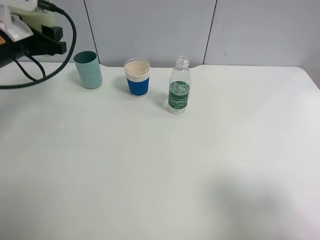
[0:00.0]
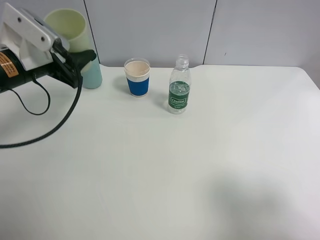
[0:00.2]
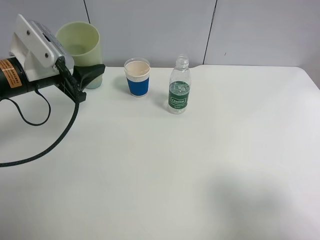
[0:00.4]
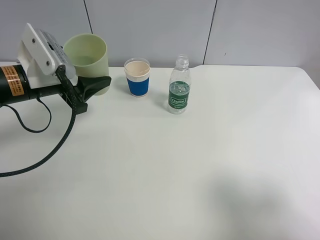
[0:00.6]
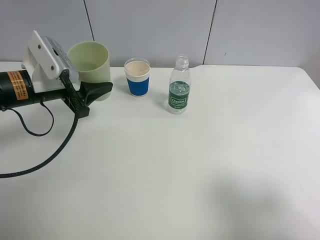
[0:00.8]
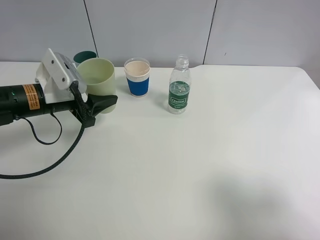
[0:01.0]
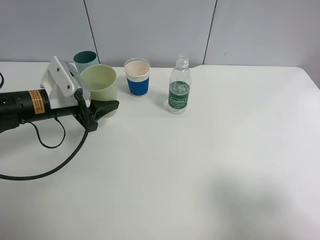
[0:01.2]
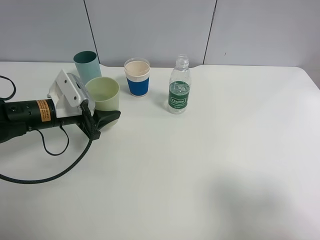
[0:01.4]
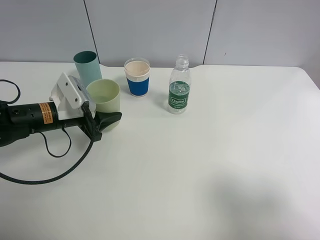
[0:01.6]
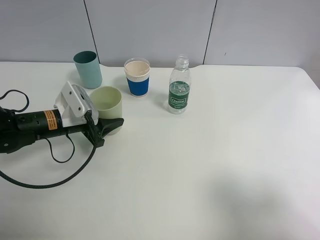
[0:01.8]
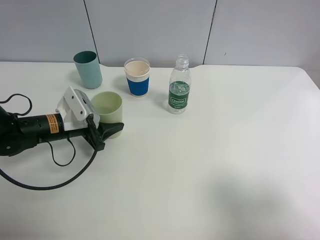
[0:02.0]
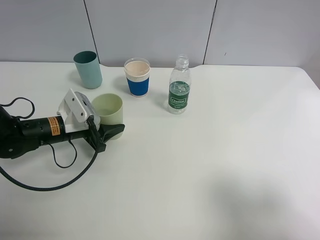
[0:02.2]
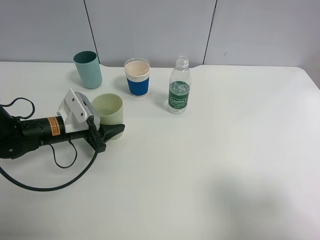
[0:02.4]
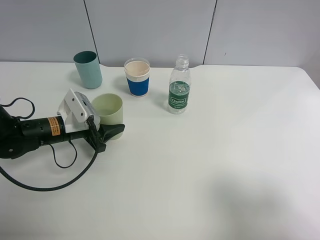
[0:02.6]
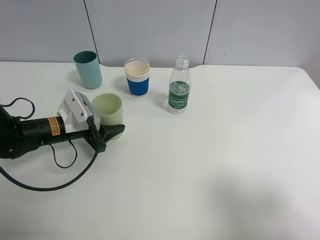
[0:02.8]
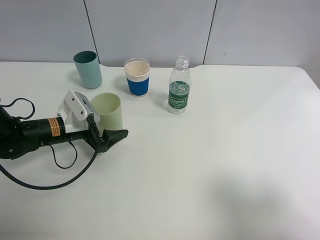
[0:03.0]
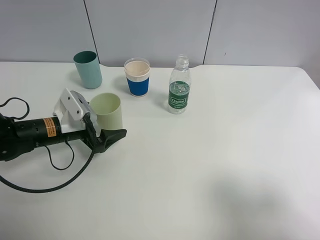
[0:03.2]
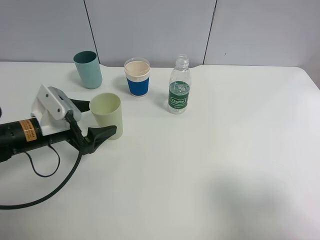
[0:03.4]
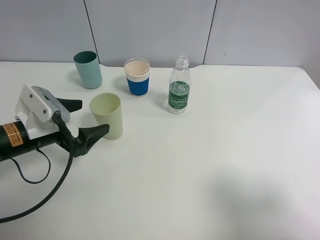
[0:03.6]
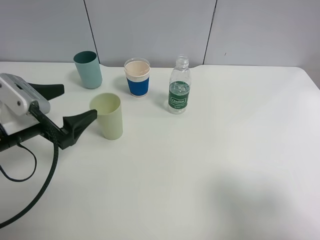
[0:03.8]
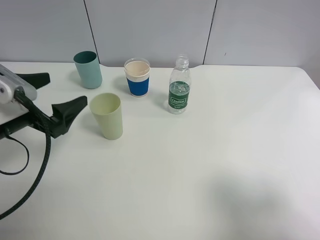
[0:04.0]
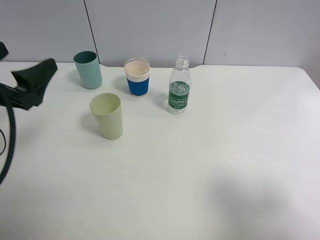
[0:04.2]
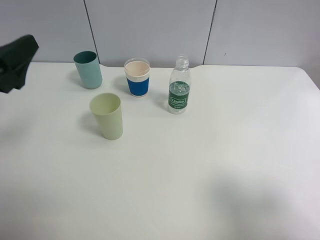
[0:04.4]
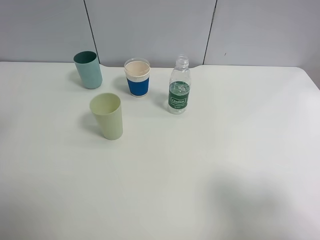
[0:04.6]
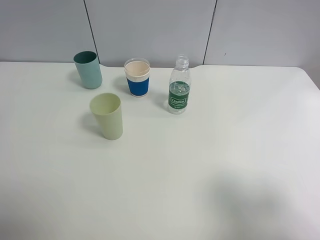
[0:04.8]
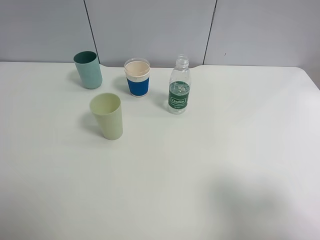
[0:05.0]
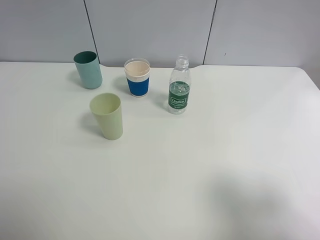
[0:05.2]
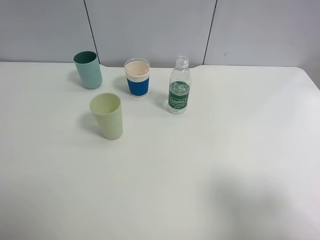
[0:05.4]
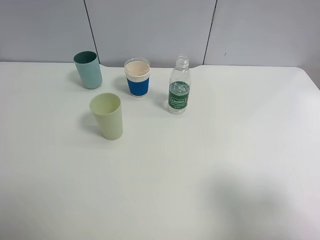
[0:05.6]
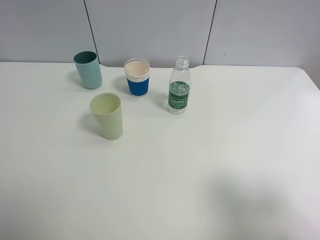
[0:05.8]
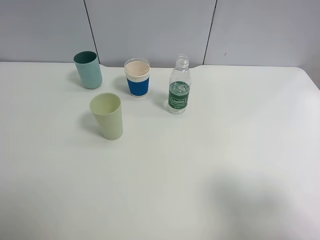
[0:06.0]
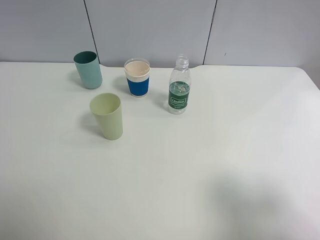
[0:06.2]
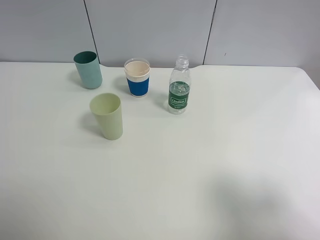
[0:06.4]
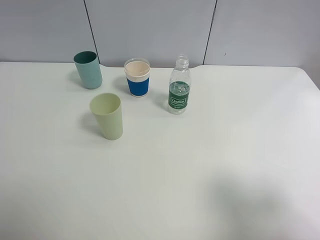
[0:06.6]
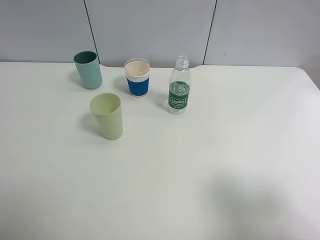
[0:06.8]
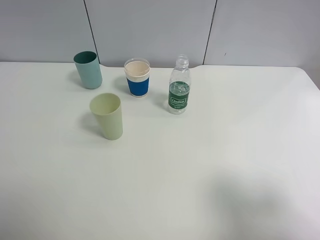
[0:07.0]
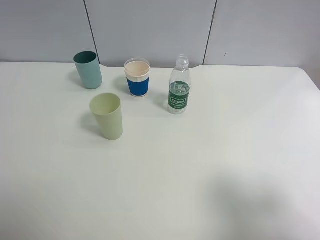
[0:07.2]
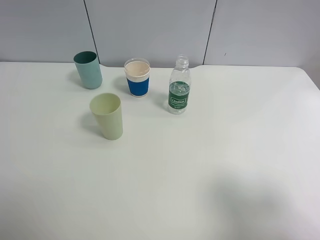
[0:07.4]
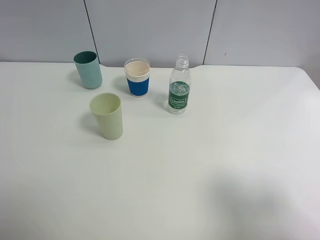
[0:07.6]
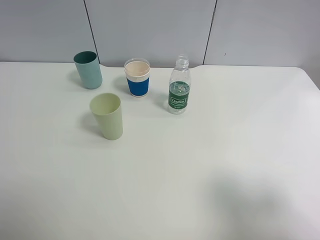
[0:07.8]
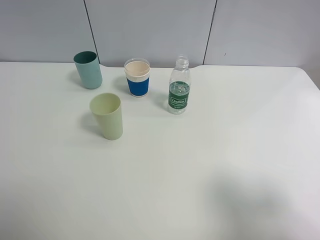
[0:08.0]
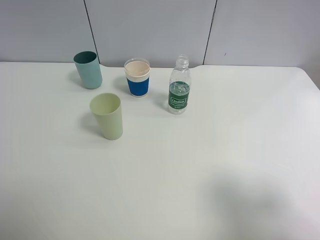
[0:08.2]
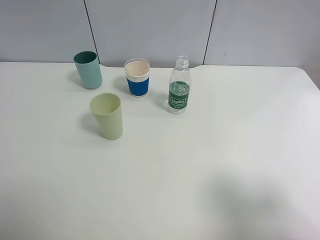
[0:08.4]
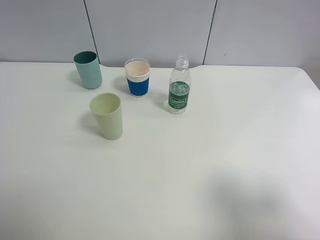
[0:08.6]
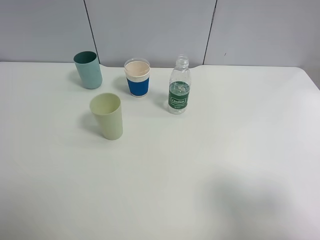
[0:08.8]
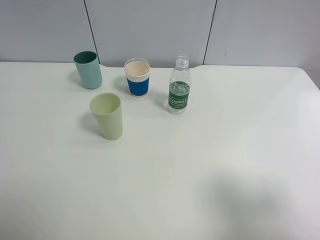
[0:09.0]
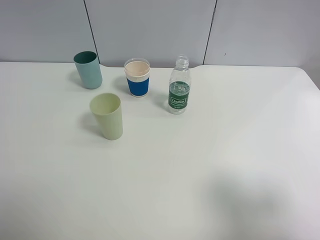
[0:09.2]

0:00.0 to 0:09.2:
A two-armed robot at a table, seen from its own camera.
Task of the whole recording: use a clamp to hold the bottle of the drink, pour the beverage into a random cup, then clamp the cup containing the drink and pour the drink into another random cup.
Step, 0:00.0 to 0:03.0: Place the green plastic cup on the table with left gripper.
0:00.0 to 0:01.6: The left gripper moves downward and to the right, roughly 15 cm.
0:01.6 to 0:03.0: The left gripper opens.
0:03.0 to 0:04.6: The left gripper travels upward and backward by approximately 30 cm.
0:07.6 to 0:09.2: The two grippers keep their place.

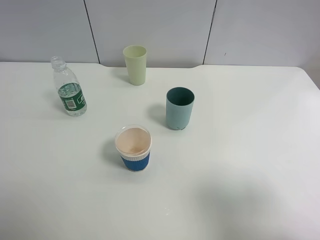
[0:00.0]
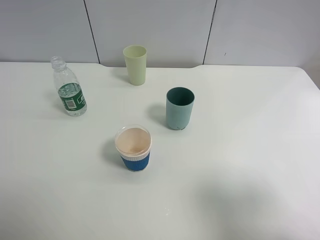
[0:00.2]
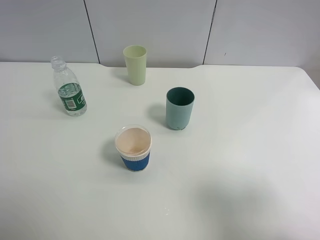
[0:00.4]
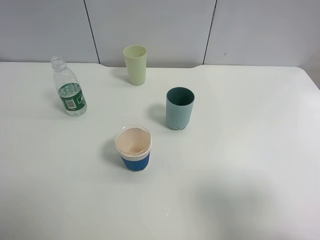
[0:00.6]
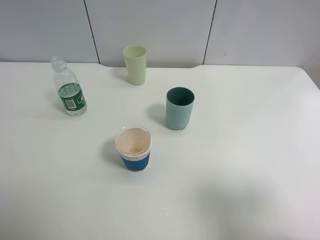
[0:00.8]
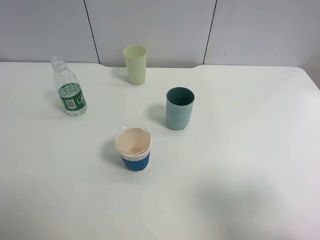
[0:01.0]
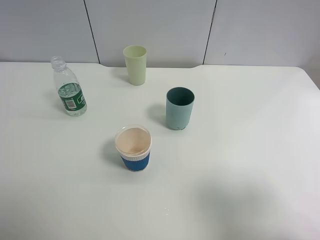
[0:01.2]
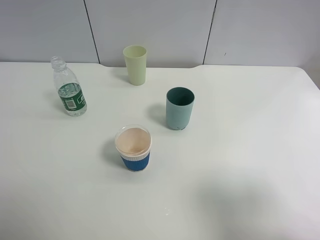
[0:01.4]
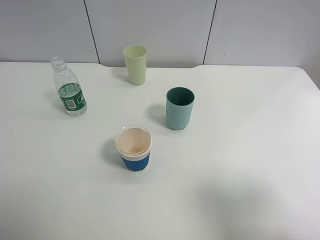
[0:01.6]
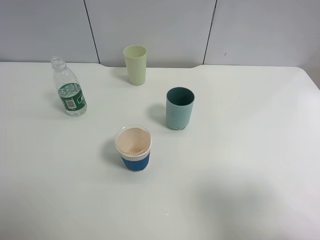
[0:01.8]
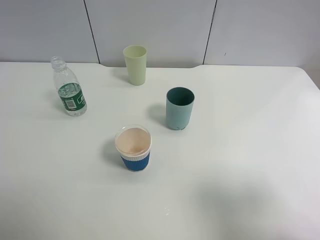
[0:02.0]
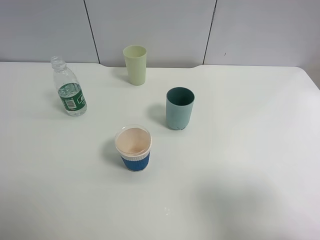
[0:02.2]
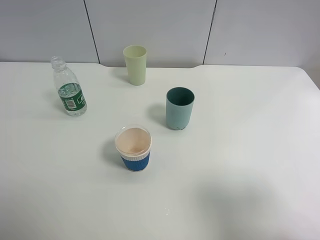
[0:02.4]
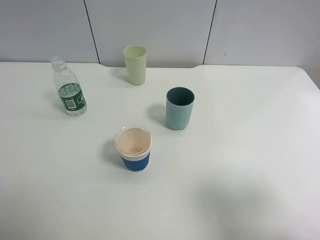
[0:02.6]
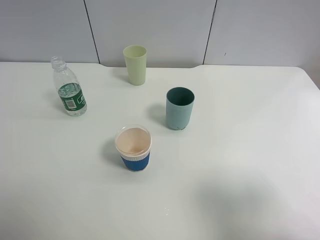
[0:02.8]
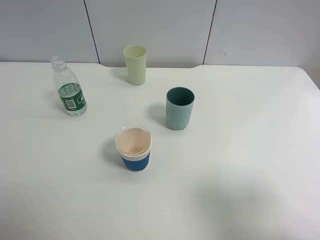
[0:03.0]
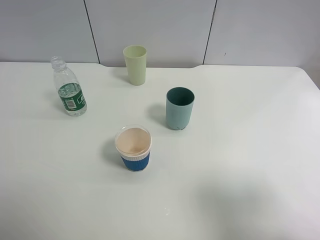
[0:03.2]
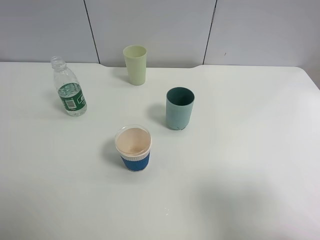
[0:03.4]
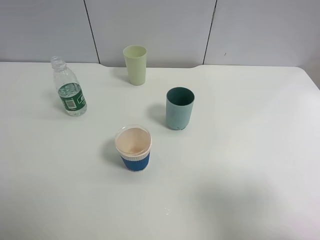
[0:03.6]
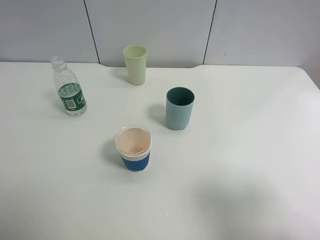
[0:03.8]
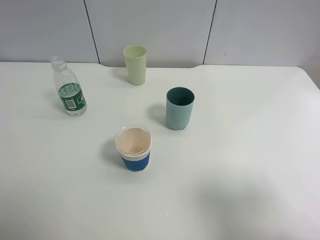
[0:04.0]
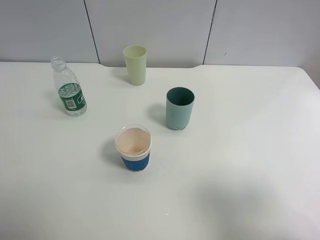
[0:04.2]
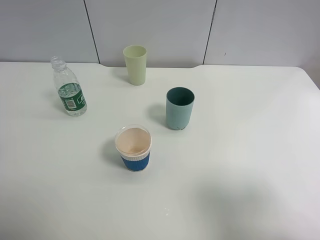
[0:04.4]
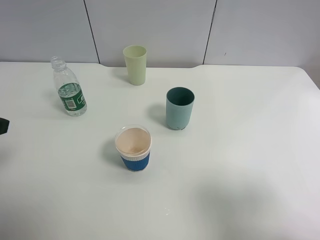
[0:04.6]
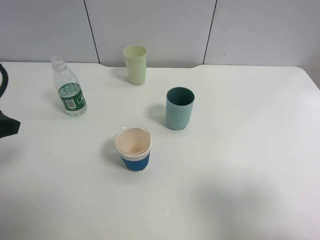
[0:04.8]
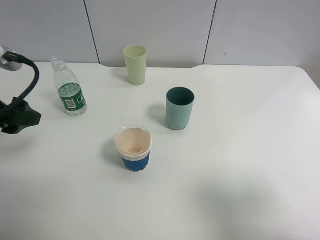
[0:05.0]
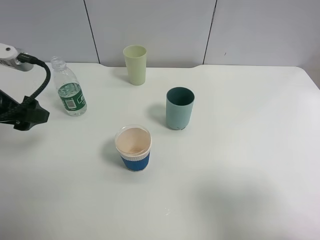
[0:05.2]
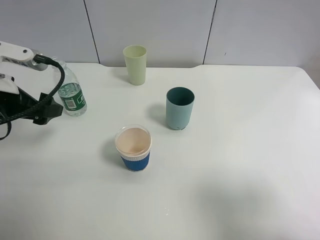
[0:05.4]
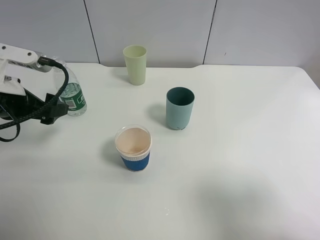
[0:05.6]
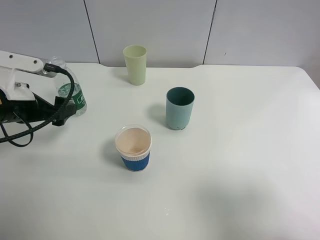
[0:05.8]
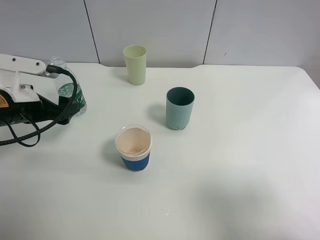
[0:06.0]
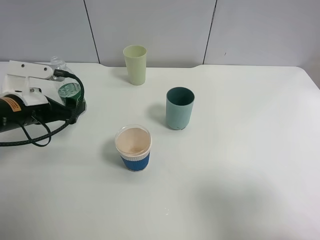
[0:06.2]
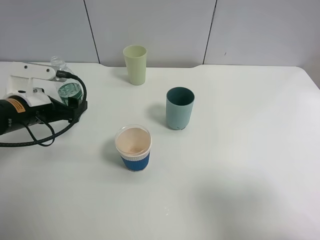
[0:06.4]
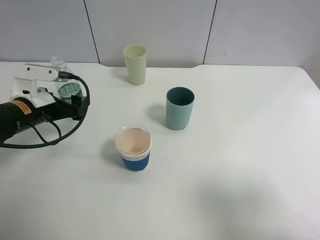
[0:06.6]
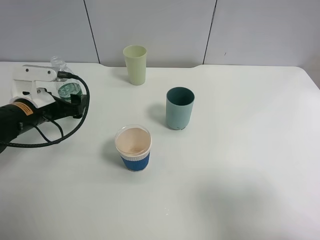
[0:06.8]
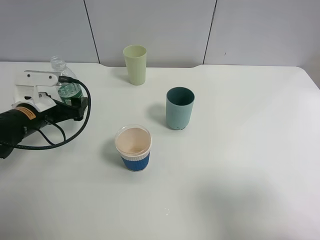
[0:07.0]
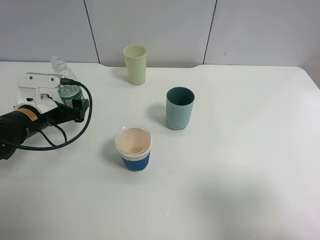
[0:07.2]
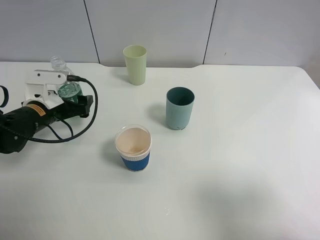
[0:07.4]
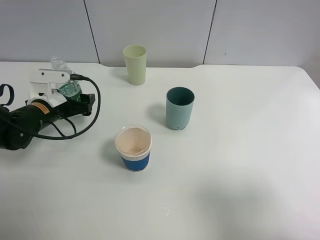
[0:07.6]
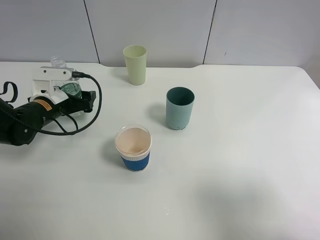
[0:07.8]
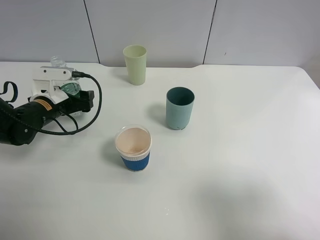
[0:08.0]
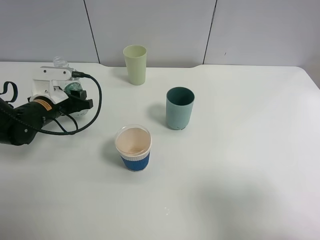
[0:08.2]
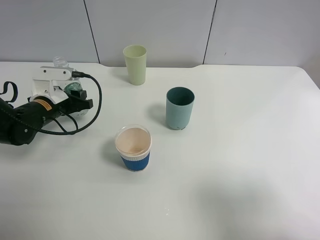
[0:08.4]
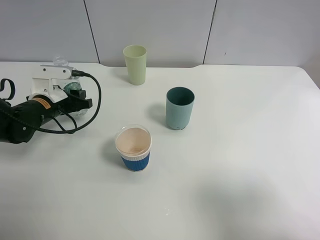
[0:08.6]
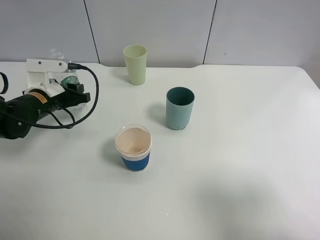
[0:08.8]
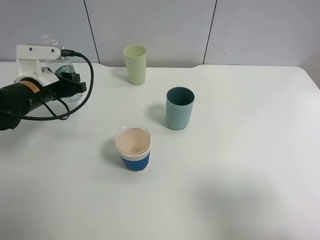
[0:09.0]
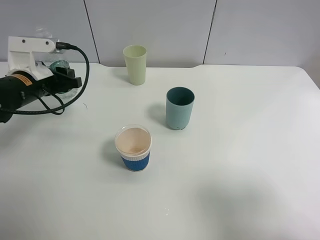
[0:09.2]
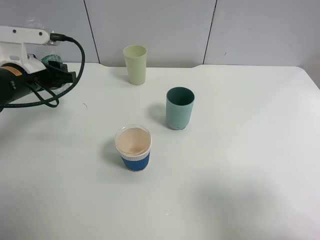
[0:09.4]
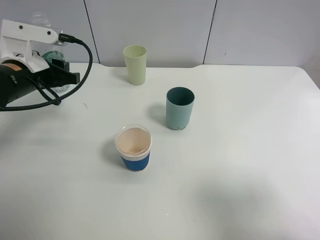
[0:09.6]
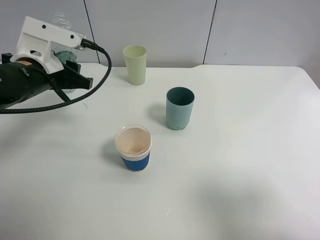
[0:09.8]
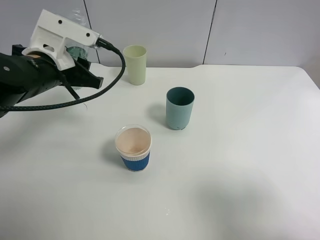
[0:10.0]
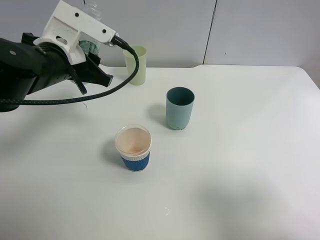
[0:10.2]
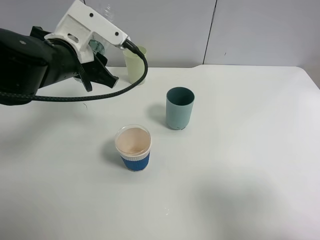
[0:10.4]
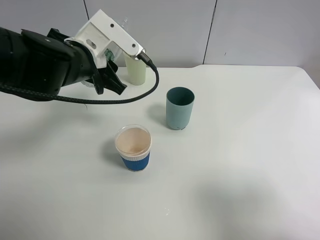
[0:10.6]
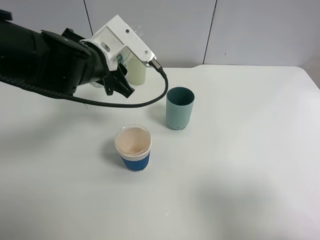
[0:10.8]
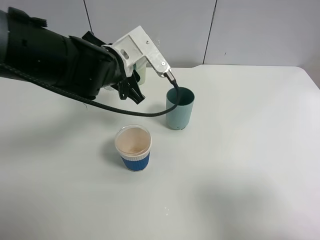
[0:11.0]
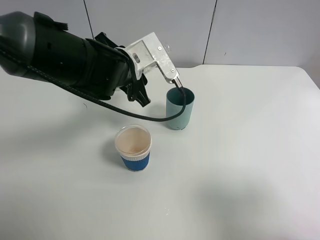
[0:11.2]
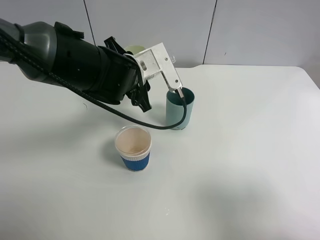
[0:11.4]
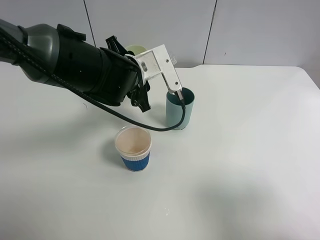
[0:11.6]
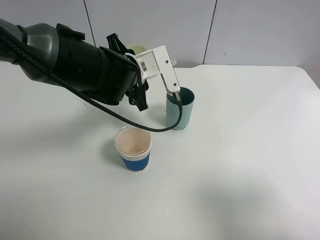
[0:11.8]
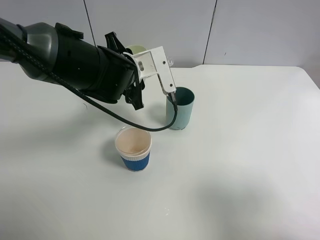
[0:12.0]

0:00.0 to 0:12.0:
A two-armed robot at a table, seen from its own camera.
Task of the whole recording: use a clamp to hold the bottle of the drink, pour the beverage into a random cup, then clamp the cup containing the drink and pour the drink into another random cup.
Step, 0:00.0 to 0:09.2: Pick up the water bottle with left gripper.
0:00.0 to 0:03.0: Neither gripper changes place.
0:04.4 to 0:06.0: The left gripper travels forward and downward by roughly 20 cm.
0:06.0 to 0:07.6: The left gripper heads downward and forward, covering some 10 cm.
0:07.6 to 0:09.0: The left gripper shifts approximately 5 cm upward, and closes.
0:09.0 to 0:10.4: The left gripper shifts approximately 15 cm to the right and upward.
0:10.4 to 0:12.0: The left gripper moves to the right, approximately 5 cm.

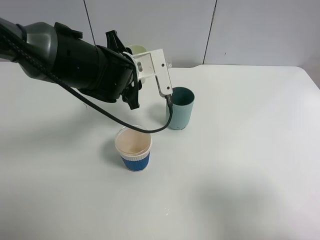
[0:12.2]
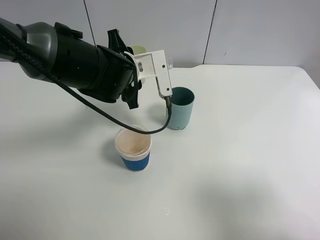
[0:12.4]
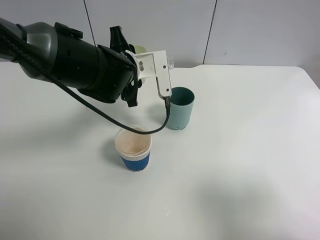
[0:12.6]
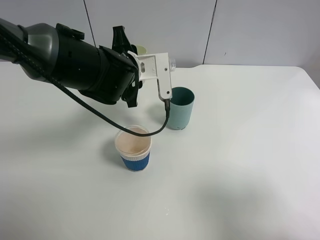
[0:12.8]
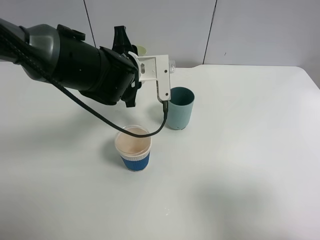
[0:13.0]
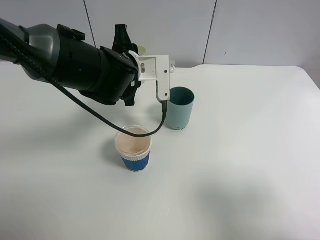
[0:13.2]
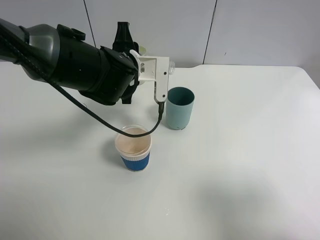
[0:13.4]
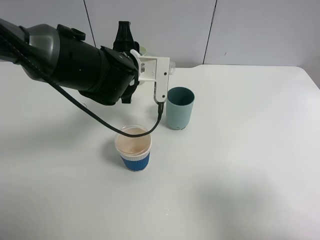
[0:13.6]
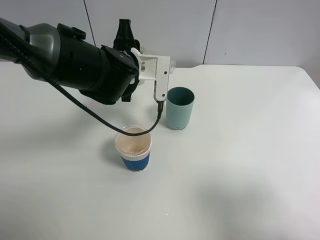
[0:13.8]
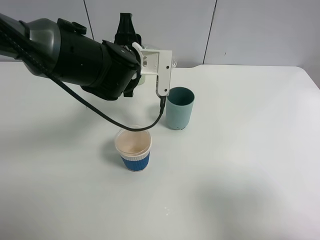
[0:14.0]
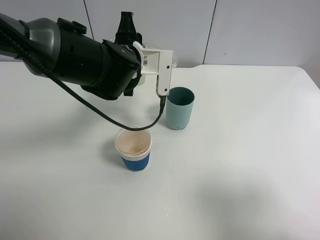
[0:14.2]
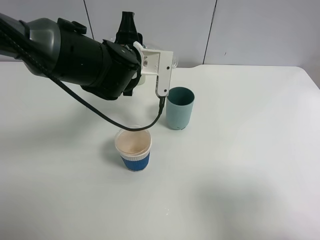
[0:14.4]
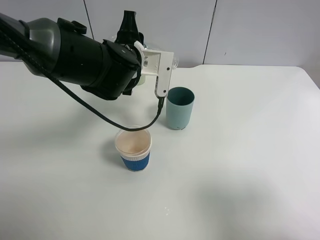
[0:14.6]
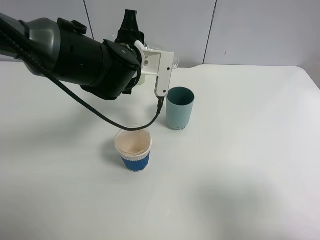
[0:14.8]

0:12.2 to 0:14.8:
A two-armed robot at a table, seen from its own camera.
Task of the whole recording: use a clamp to hold the bottle of the drink, pour the beverage into a random cup, then clamp the cup containing the drink and pour the drink into another random cup.
0:12.2 to 0:13.4: The grippers stay close to where they were, moving slightly.
0:13.4 to 0:14.8: The grippers make only small movements.
